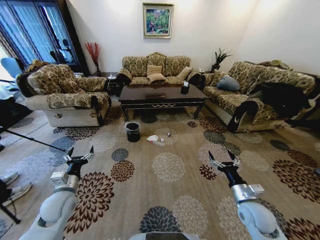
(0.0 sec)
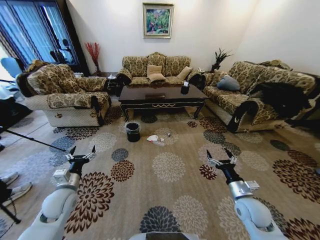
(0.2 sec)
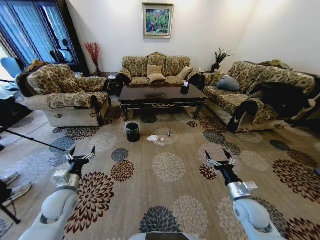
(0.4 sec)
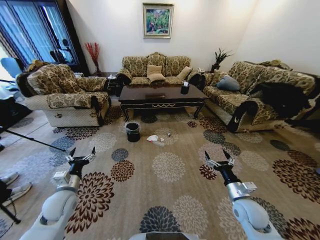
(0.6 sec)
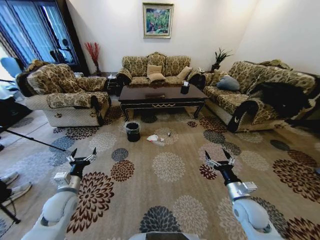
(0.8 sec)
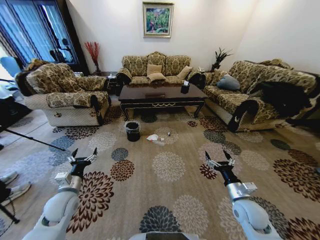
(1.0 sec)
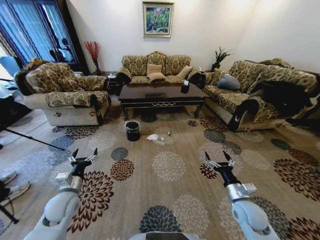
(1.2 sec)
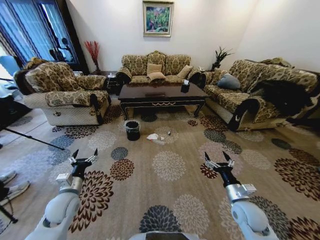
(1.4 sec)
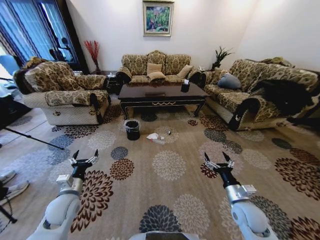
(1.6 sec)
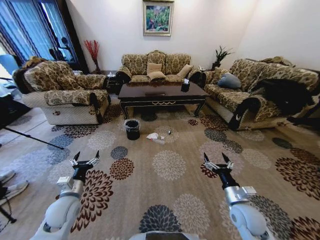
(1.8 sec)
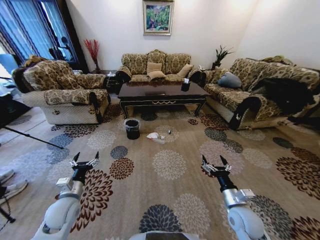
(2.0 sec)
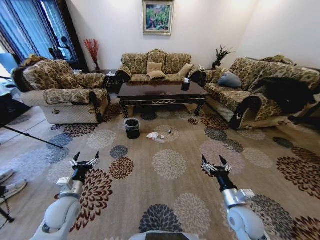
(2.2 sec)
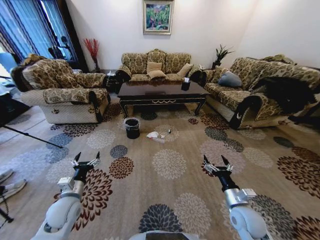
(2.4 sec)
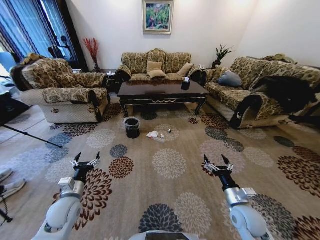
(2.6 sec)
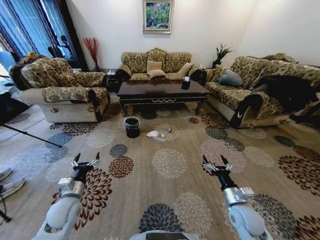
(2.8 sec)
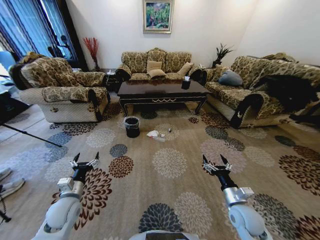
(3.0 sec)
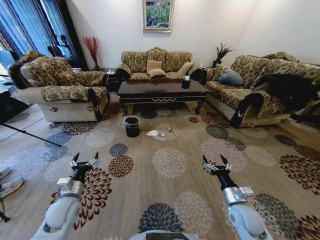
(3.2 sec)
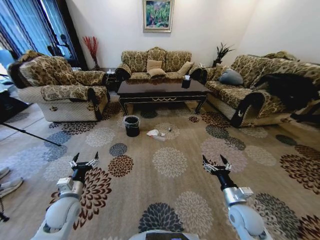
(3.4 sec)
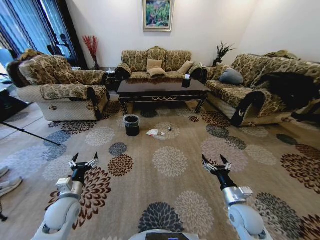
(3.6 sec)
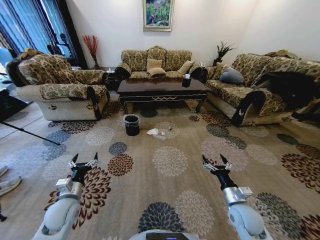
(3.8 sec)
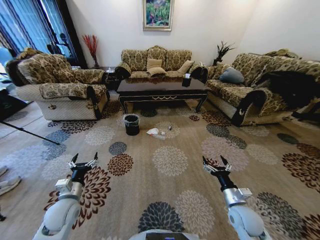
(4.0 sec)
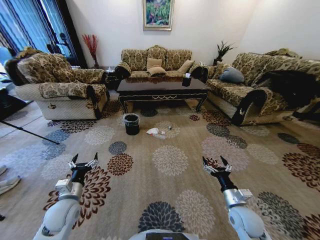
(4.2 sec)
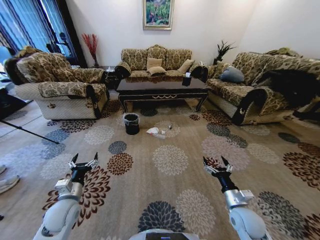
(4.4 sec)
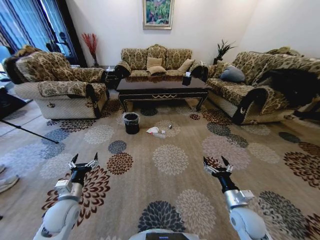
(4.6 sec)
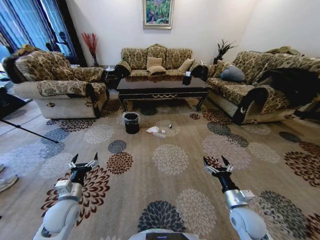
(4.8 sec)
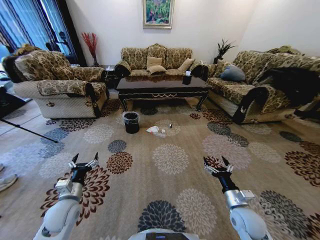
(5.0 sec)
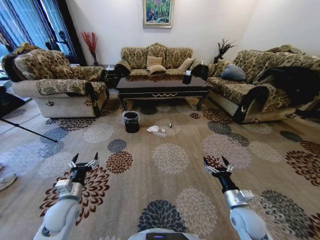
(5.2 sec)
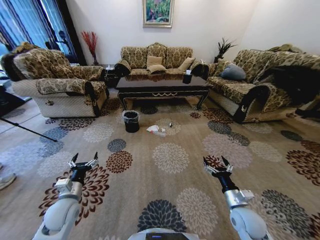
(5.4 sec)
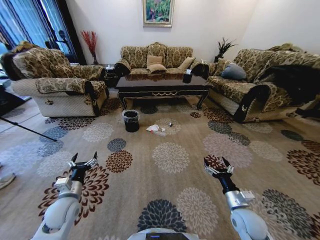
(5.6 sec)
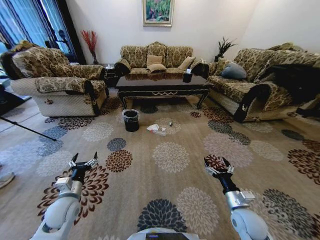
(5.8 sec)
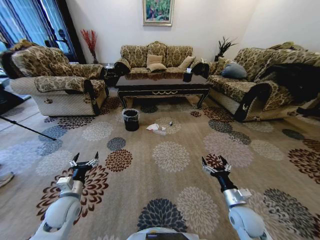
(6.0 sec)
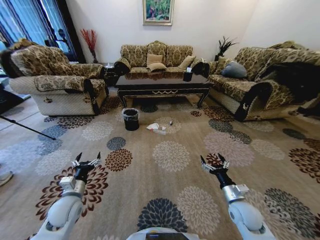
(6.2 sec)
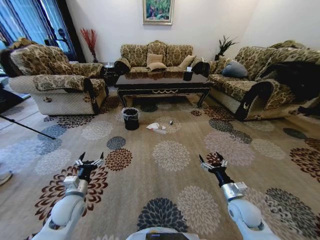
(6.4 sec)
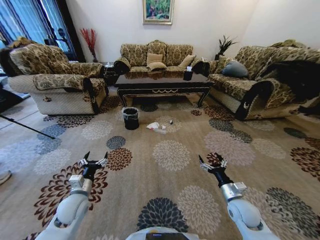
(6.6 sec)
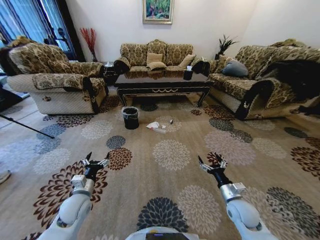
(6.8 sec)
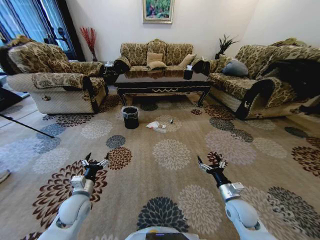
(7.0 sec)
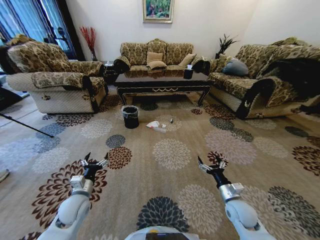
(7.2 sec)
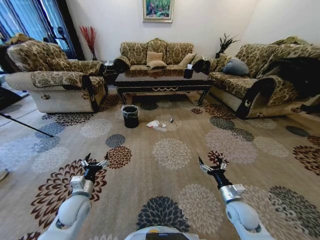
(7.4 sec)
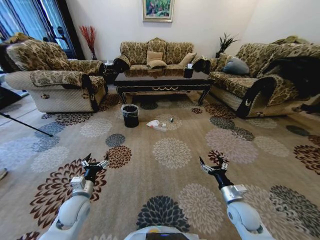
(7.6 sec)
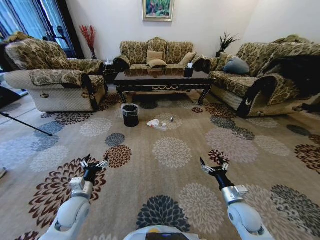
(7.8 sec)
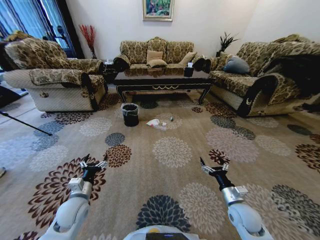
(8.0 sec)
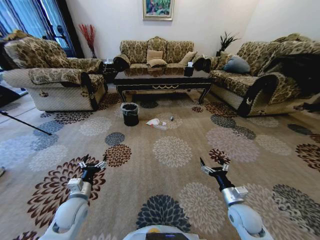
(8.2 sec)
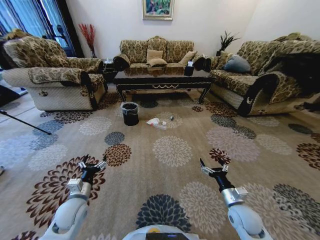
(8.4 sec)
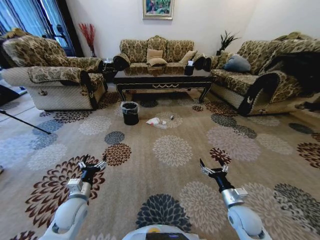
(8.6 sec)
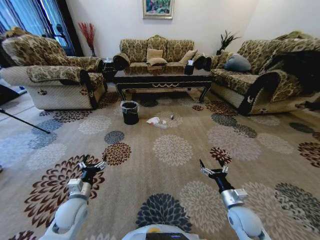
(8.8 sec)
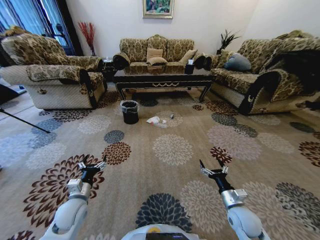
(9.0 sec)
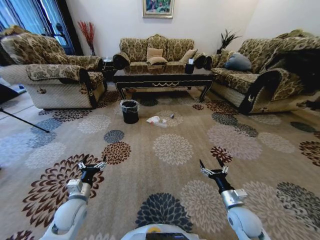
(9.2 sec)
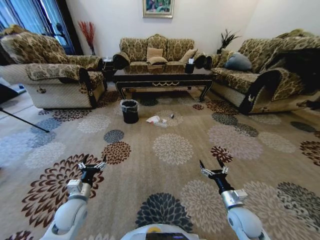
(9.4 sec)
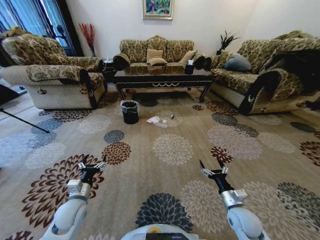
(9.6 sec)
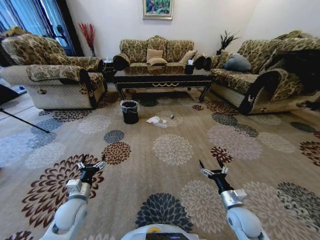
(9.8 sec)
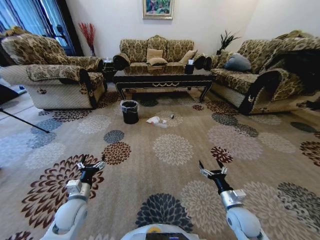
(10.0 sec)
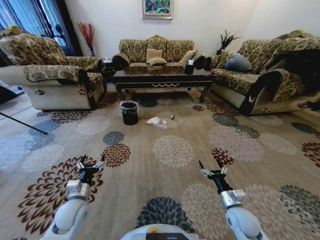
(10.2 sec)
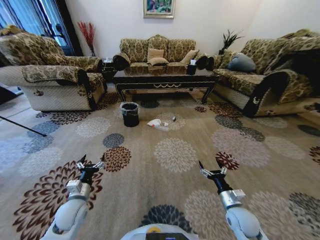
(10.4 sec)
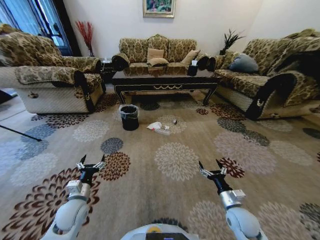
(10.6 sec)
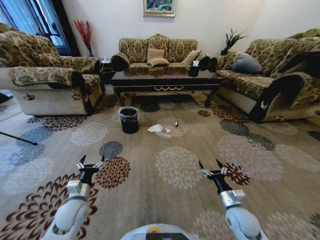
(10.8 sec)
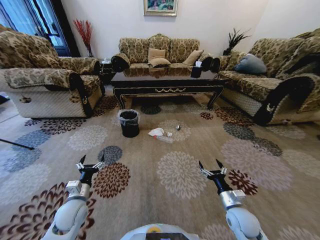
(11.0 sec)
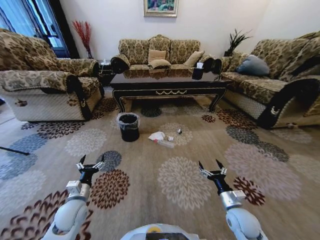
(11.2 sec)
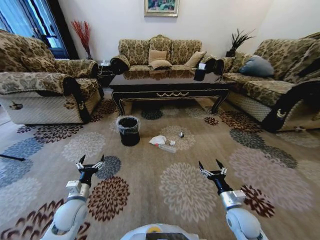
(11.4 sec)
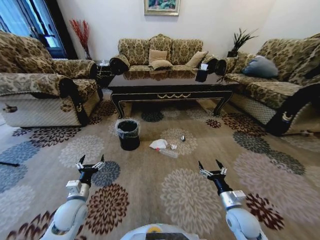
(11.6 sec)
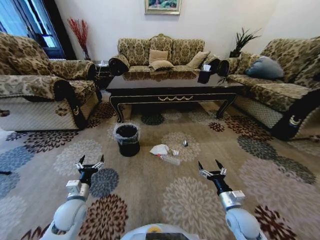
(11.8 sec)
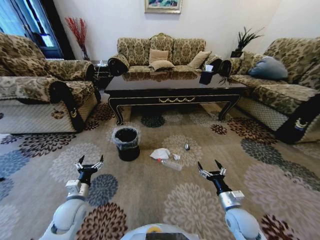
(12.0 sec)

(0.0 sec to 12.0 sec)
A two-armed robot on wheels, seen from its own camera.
Task of the whole recording: Move to the front of the table and pick up the trash from the floor, then place it into the trash bin.
9.0 sec - 10.4 sec: Both grippers stay put.

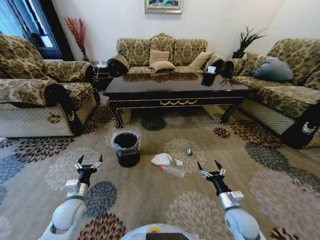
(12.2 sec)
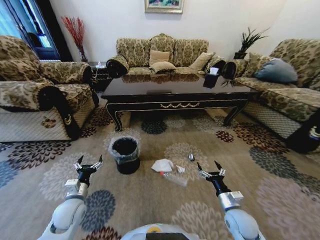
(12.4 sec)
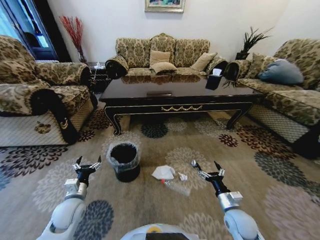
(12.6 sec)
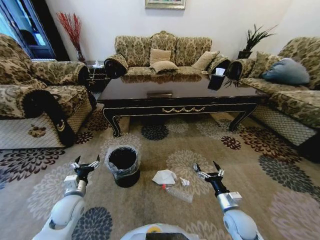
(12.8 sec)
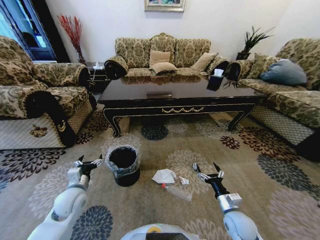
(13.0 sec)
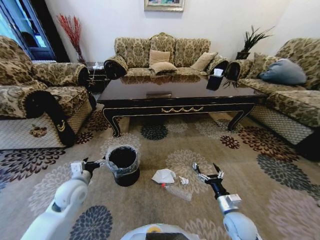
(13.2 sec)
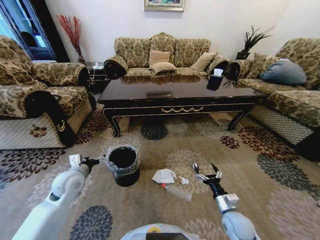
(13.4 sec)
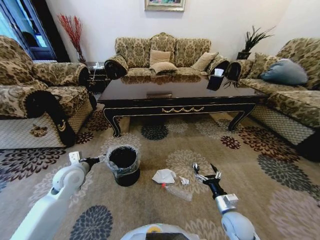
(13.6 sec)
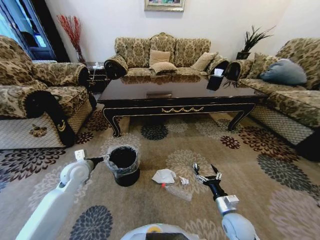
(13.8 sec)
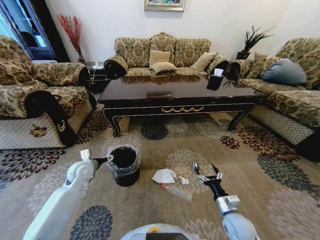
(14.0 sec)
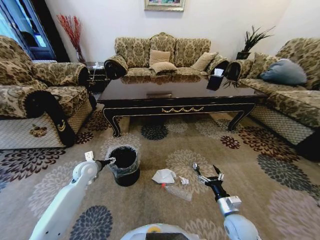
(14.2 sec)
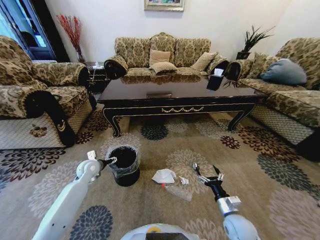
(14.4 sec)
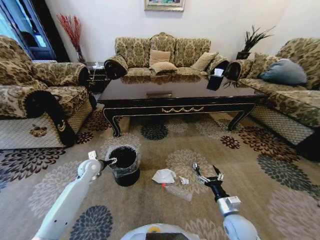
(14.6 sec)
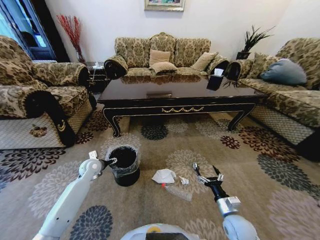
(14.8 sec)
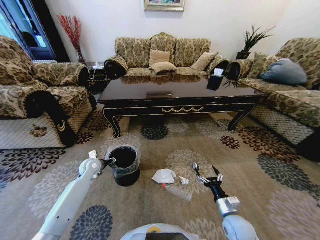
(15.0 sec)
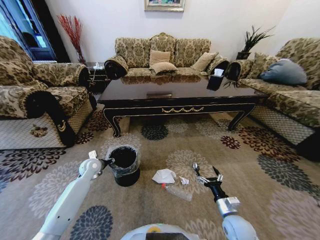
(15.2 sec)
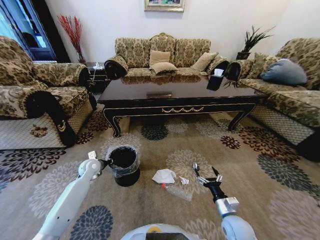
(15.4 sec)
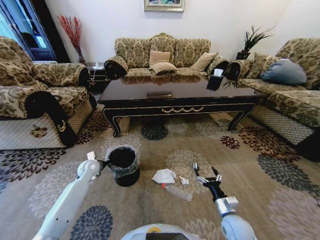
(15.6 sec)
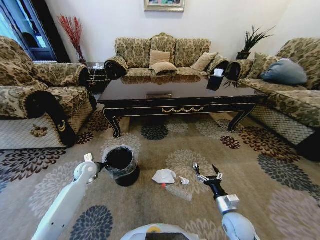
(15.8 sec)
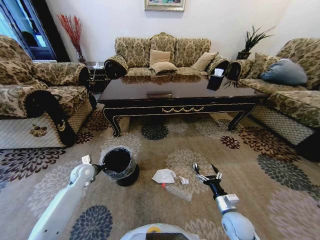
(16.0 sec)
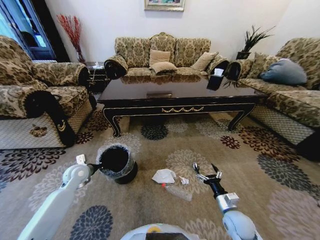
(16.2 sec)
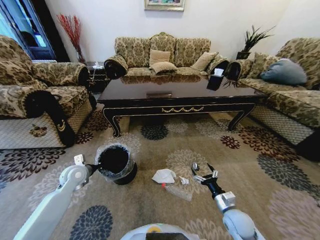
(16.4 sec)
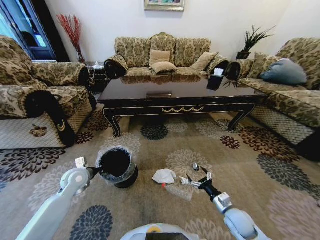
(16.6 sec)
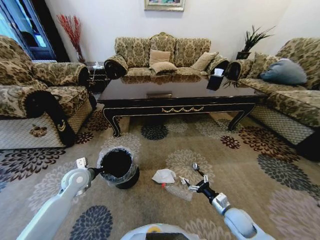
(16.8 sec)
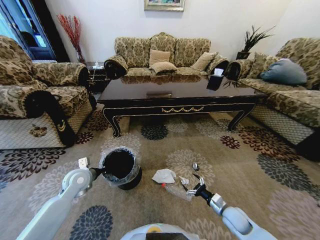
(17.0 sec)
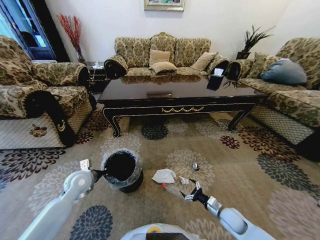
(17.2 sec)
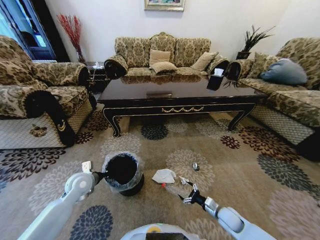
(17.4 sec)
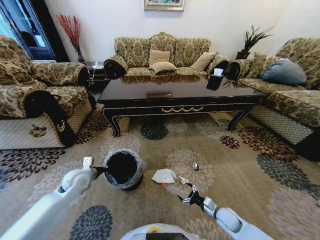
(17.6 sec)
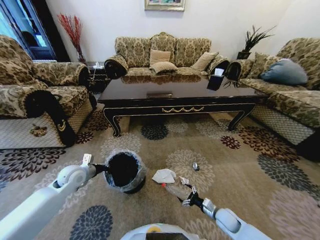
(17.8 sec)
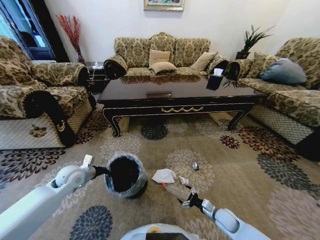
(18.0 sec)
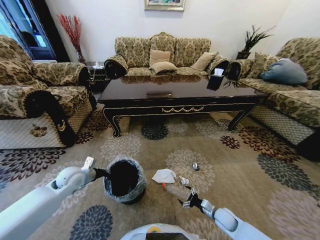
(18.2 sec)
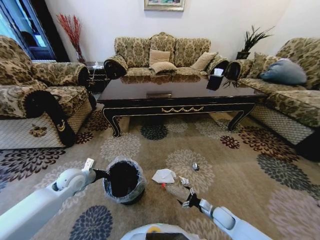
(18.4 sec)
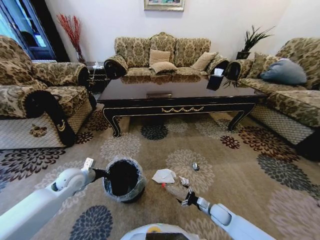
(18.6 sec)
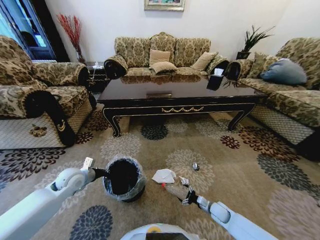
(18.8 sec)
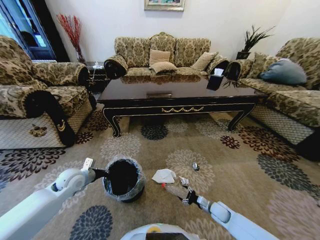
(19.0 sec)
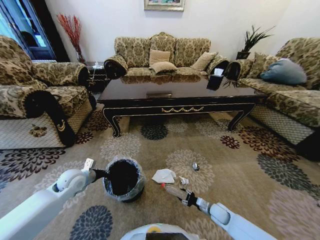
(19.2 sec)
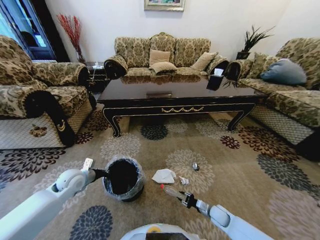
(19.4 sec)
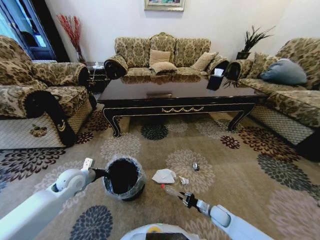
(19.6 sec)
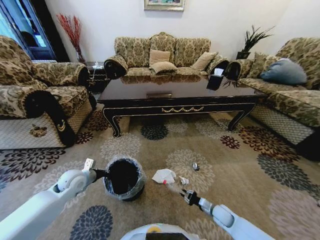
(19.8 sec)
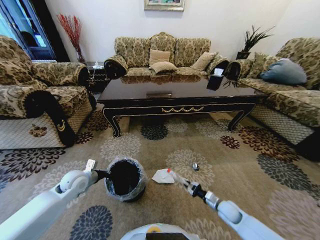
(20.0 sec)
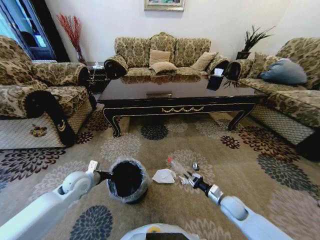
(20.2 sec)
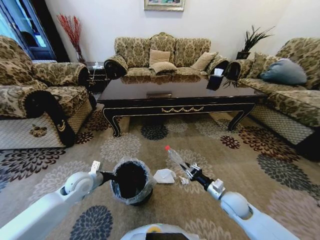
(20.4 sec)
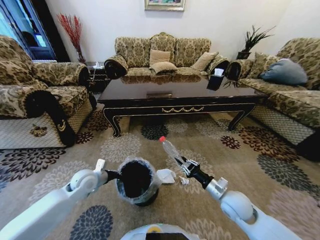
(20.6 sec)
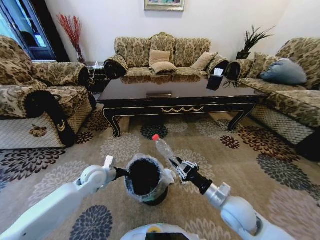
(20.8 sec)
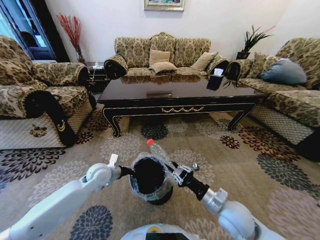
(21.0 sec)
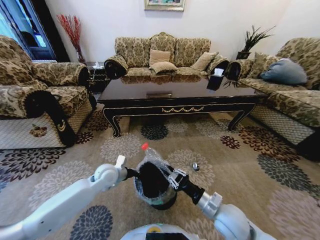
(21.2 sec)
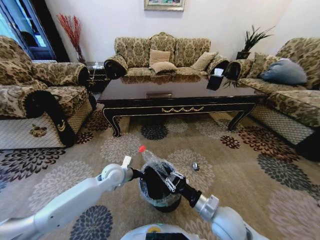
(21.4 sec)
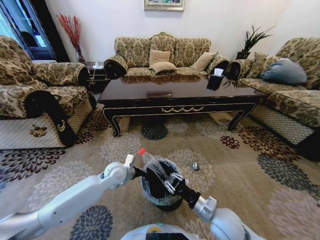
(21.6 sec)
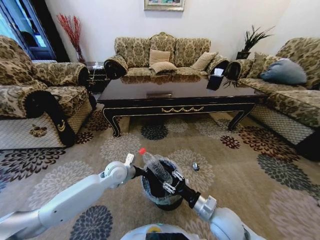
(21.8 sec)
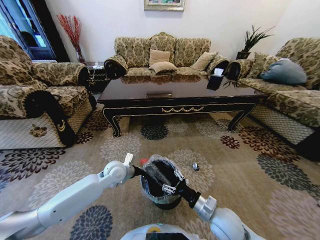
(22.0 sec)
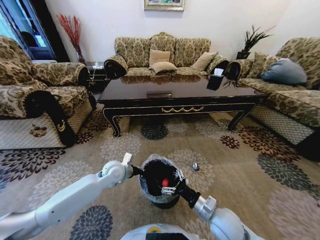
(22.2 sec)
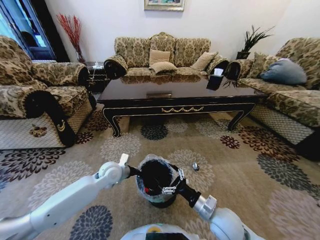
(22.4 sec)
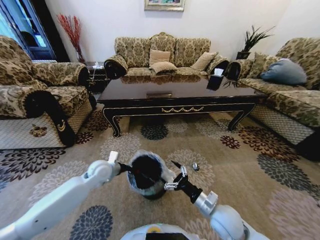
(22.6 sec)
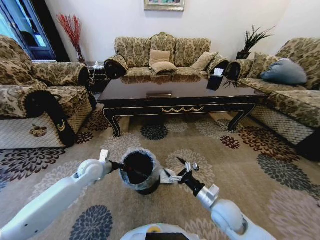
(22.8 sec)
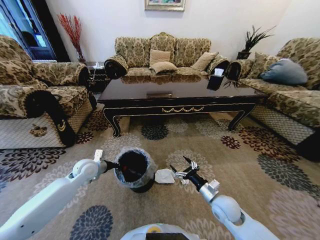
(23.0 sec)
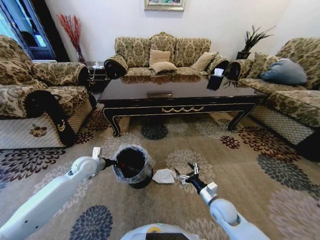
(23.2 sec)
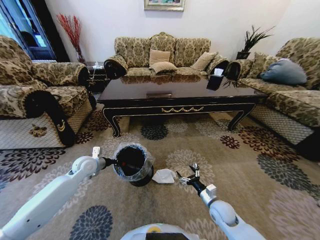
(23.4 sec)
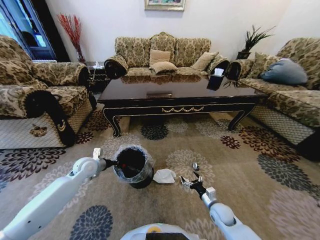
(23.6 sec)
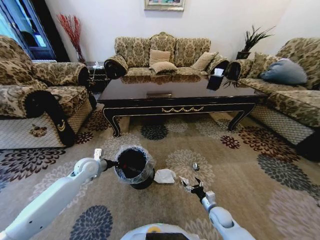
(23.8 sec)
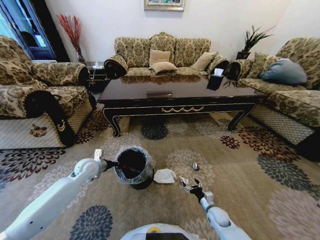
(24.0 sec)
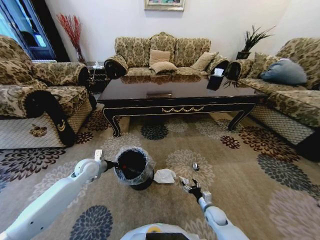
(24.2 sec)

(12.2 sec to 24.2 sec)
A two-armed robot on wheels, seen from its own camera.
Task of the whole recording: Move to the front of the table and pick up the trash from the floor, then place it into the trash bin.
12.2 sec - 13.8 sec: The left gripper heads forward and upward, covering roughly 15 cm.
13.8 sec - 15.2 sec: The left gripper moves downward and forward, some 10 cm, and closes its fingers.
15.2 sec - 16.6 sec: The left gripper is displaced backward by roughly 10 cm, and closes up.
16.6 sec - 18.2 sec: The right gripper shifts roughly 10 cm downward.
18.2 sec - 19.8 sec: The right gripper closes its fingers.
19.8 sec - 21.2 sec: The left gripper shifts some 15 cm to the right. Meanwhile the right gripper heads upward and to the left, covering some 25 cm.
21.2 sec - 22.6 sec: The right gripper opens.
22.6 sec - 24.2 sec: The left gripper moves to the left, about 5 cm. The right gripper goes about 25 cm downward.
